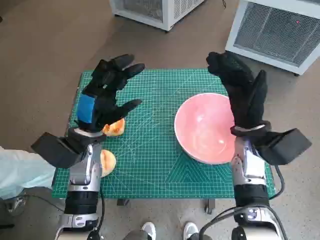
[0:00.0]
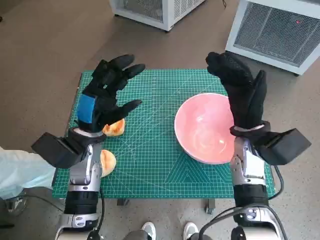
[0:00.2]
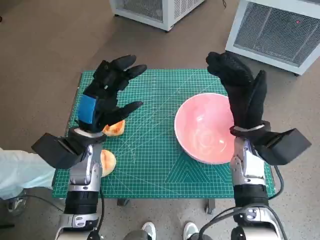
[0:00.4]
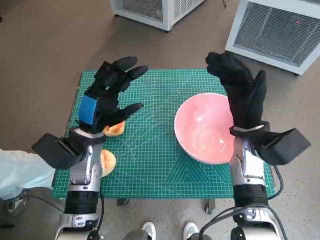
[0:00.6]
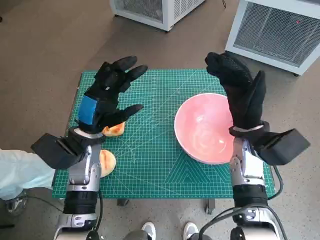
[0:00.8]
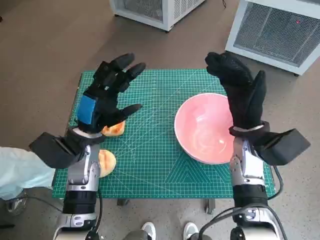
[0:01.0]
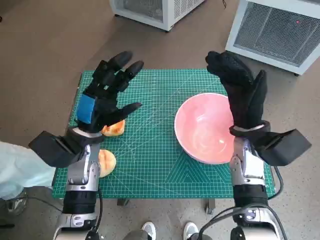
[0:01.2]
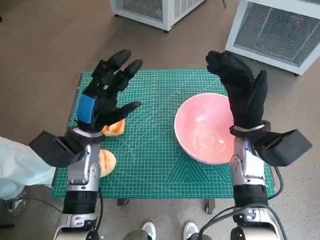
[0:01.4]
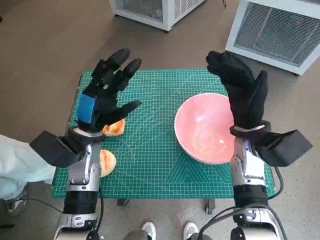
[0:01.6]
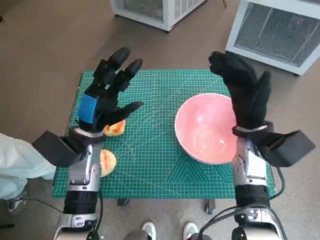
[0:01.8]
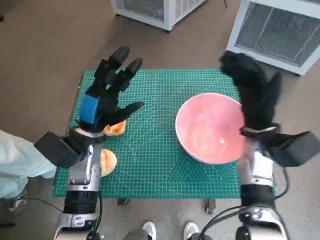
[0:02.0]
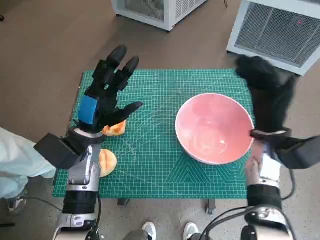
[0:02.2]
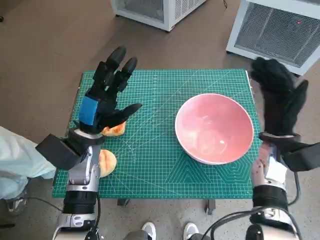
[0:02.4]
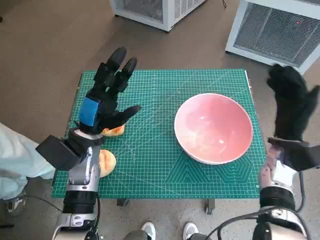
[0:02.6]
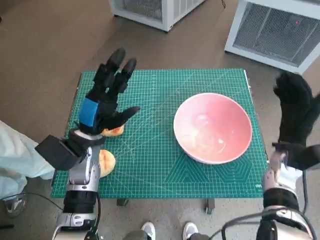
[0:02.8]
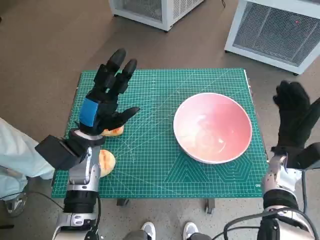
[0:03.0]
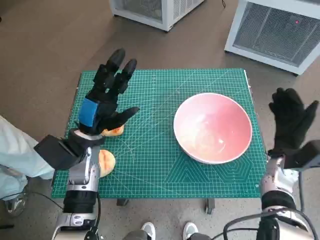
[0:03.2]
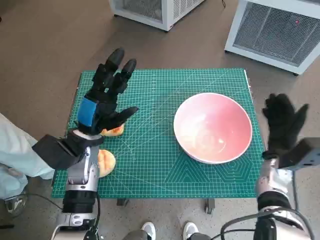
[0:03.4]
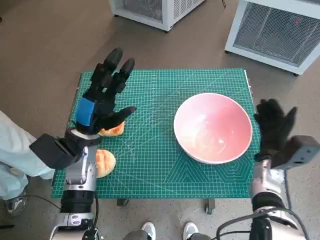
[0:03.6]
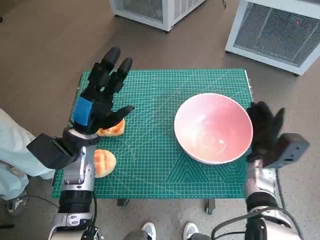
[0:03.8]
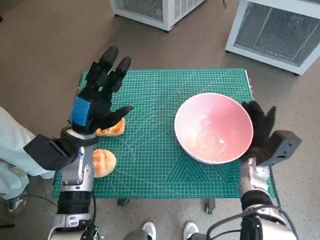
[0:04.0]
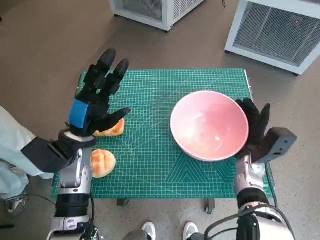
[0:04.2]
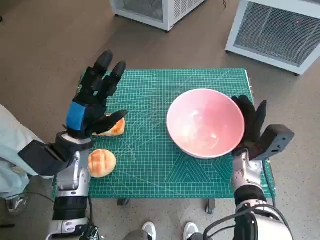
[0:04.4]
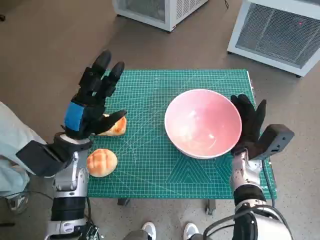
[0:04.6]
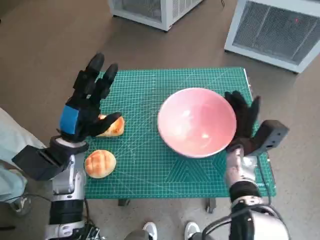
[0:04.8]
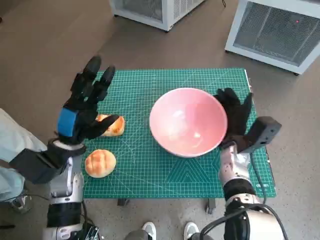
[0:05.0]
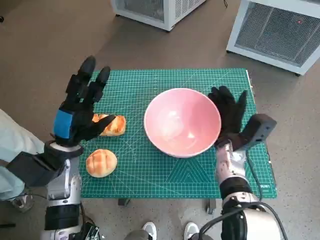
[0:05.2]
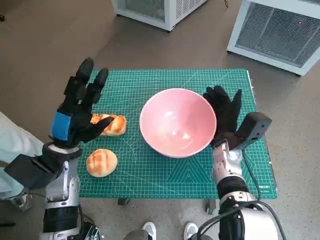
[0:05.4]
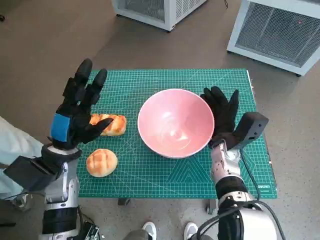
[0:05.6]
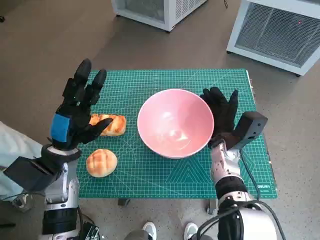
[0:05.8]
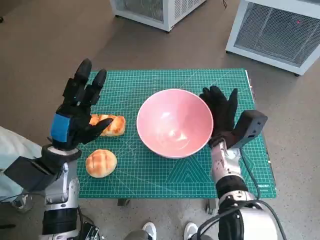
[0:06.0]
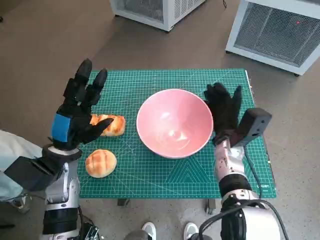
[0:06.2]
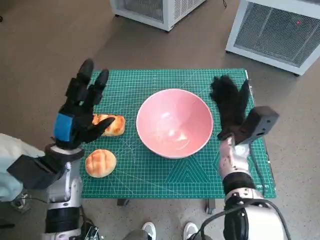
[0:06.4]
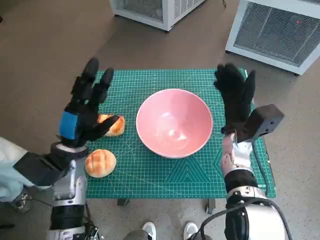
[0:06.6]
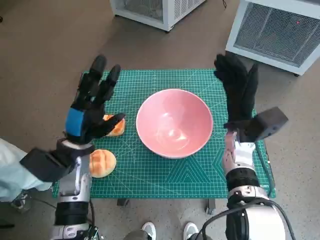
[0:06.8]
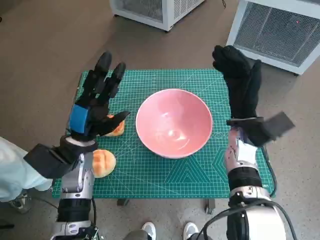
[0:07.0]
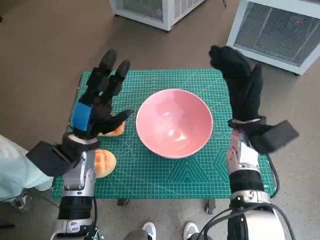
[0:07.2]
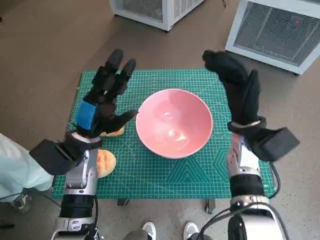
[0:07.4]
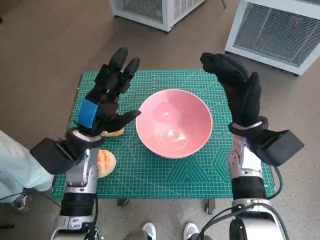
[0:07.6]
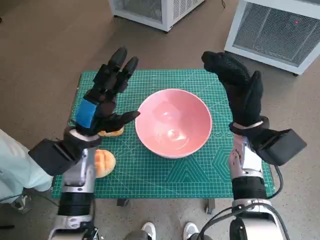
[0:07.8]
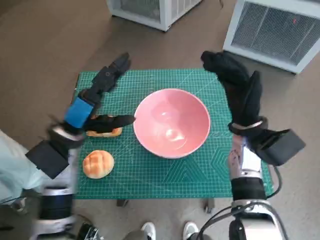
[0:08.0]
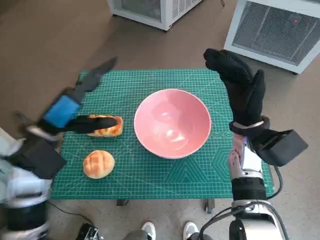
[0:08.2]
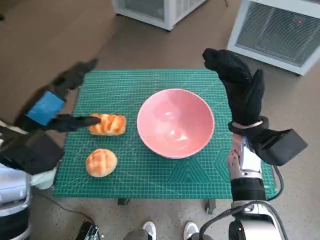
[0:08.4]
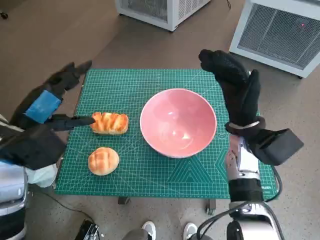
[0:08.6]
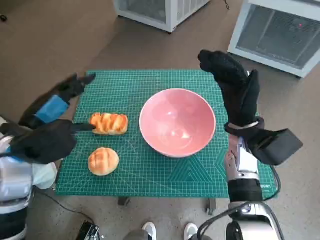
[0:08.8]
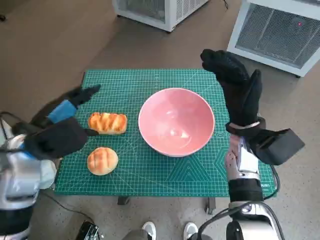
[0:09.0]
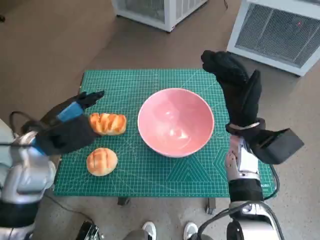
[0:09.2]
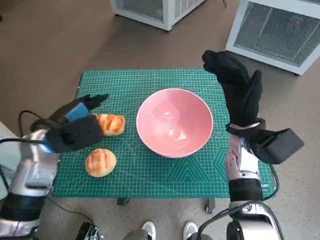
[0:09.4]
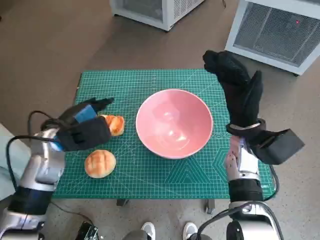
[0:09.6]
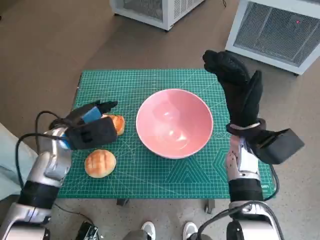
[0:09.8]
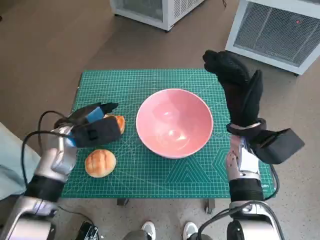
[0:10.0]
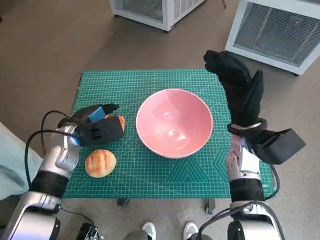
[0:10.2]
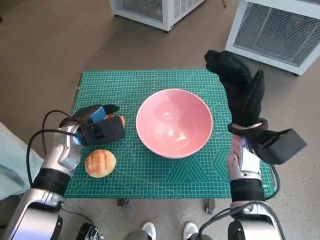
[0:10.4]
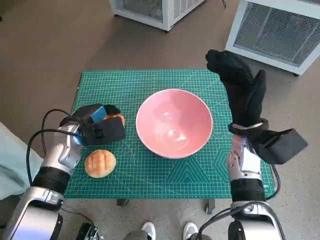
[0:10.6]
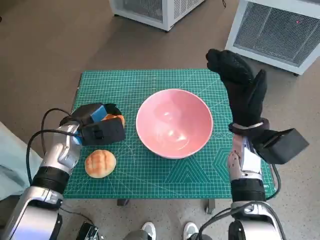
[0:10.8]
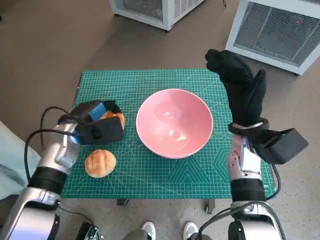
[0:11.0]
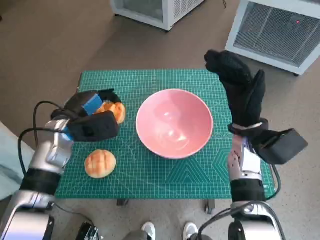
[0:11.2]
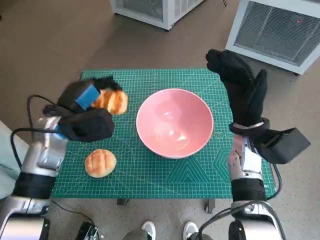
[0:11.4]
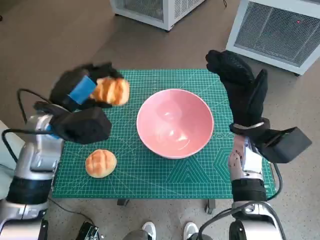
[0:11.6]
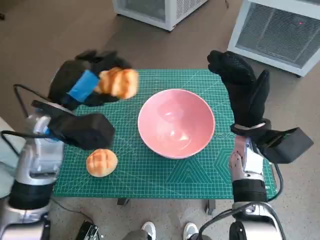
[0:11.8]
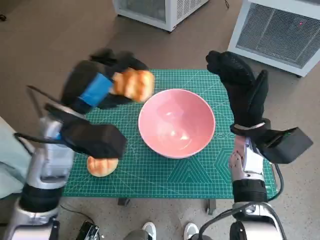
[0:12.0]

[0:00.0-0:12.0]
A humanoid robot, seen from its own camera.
Task of the whole recording: Push the bowl into the center of the table and put the bread into the bowl.
Step, 0:00.0 to 0:06.2: Move the pink bowl to the center of table with right hand.
Step, 0:06.4 to 0:10.8: Grasp the long bread with left hand.
0:01.6 to 0:03.0: The right hand moves to the right and downward, approximately 10 cm.
0:03.0 to 0:04.4: The right hand heads to the left, covering some 5 cm.
0:04.4 to 0:06.0: The right hand travels to the left by approximately 5 cm.
0:06.0 to 0:07.6: The right hand goes about 10 cm upward, while the left hand moves approximately 5 cm.
0:07.6 to 0:09.0: The left hand travels to the left and upward by about 10 cm.
0:09.0 to 0:10.4: The left hand heads downward and forward, covering roughly 10 cm.
0:10.4 to 0:12.0: The left hand moves upward, roughly 10 cm.

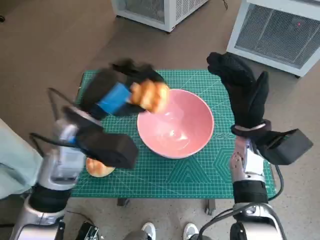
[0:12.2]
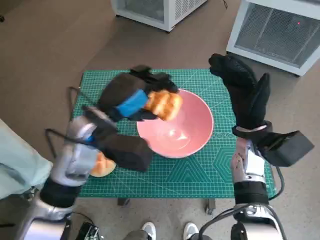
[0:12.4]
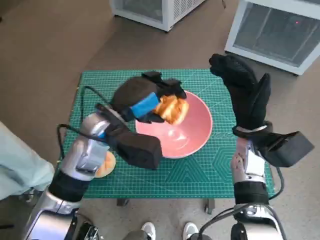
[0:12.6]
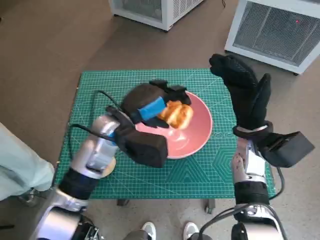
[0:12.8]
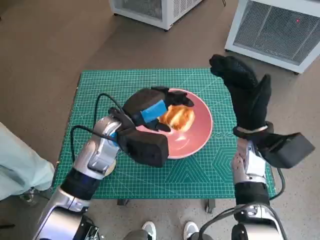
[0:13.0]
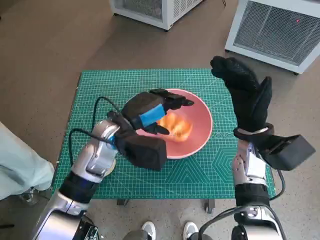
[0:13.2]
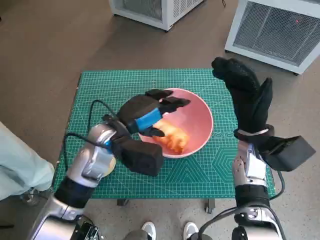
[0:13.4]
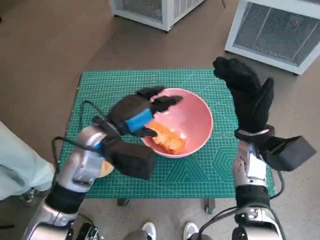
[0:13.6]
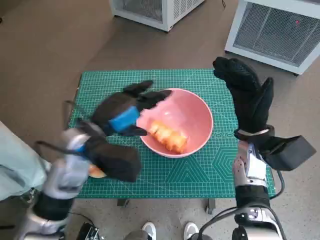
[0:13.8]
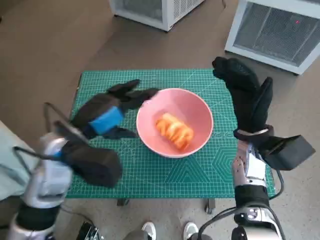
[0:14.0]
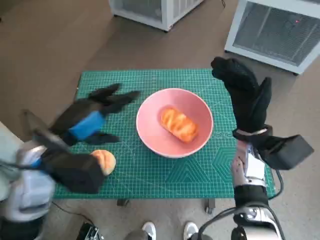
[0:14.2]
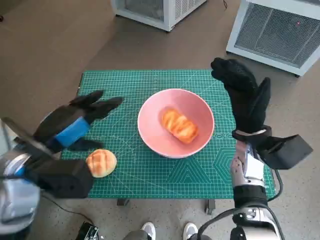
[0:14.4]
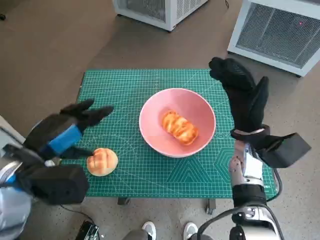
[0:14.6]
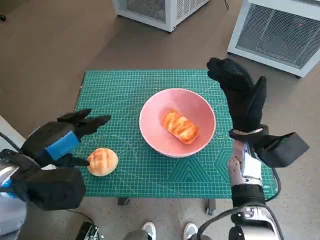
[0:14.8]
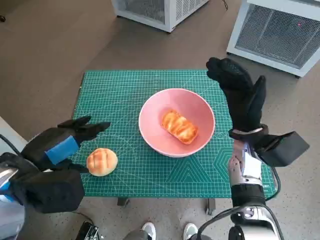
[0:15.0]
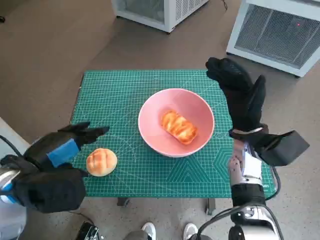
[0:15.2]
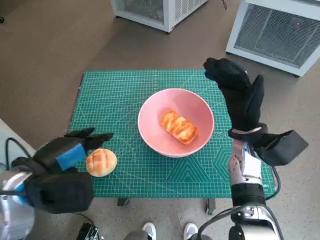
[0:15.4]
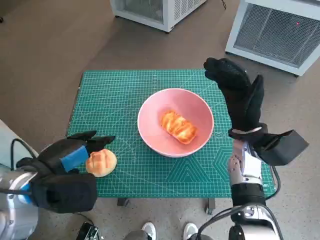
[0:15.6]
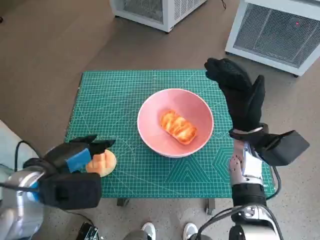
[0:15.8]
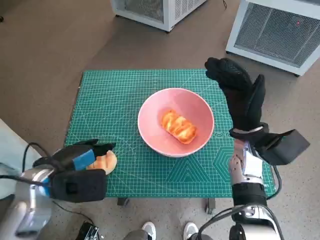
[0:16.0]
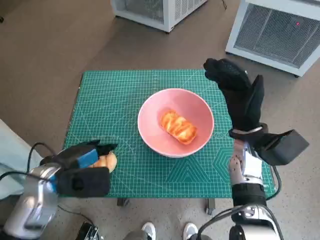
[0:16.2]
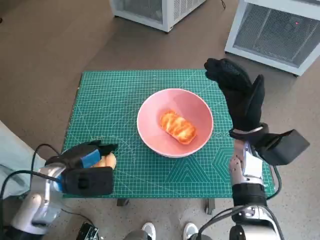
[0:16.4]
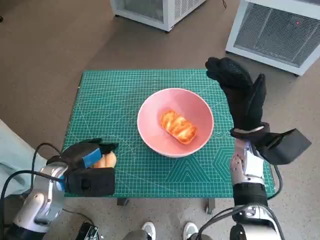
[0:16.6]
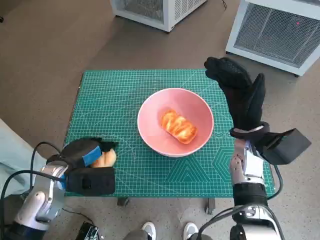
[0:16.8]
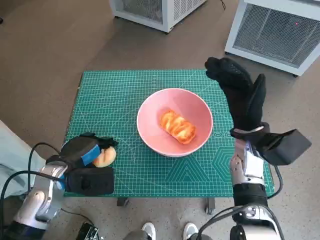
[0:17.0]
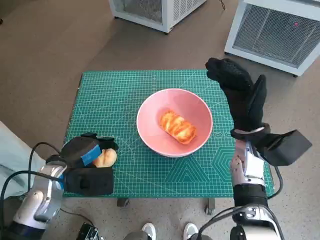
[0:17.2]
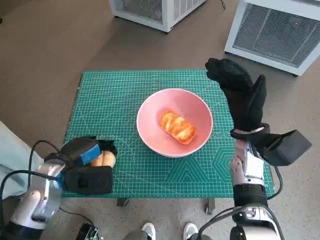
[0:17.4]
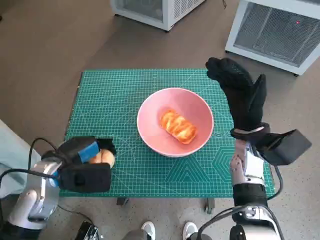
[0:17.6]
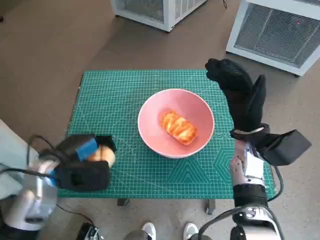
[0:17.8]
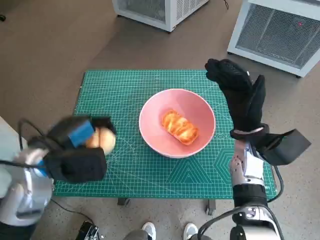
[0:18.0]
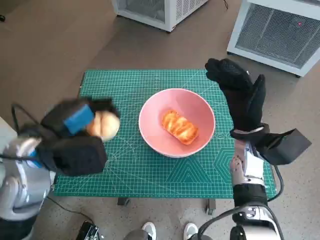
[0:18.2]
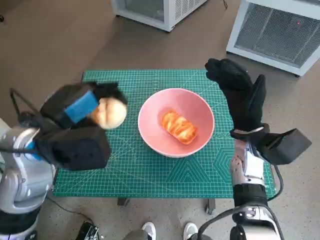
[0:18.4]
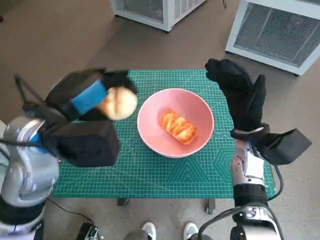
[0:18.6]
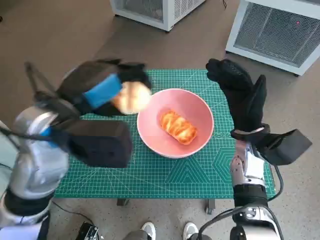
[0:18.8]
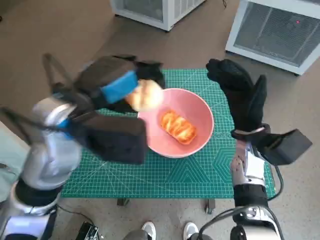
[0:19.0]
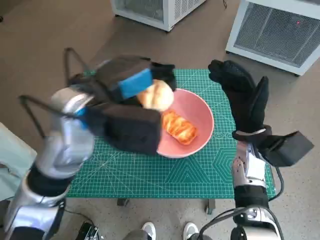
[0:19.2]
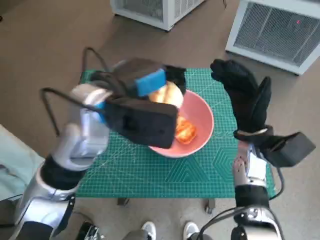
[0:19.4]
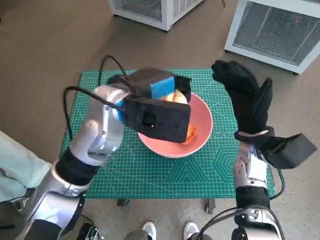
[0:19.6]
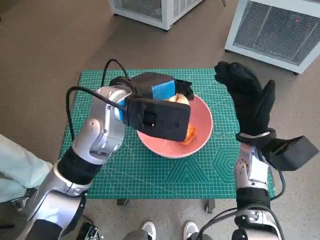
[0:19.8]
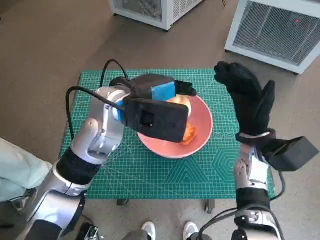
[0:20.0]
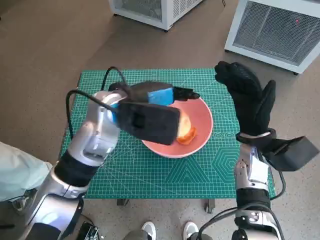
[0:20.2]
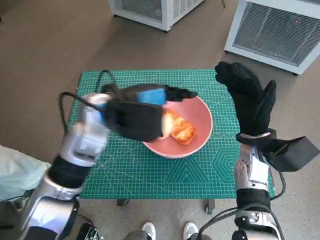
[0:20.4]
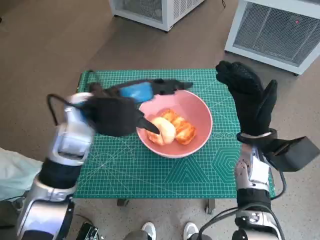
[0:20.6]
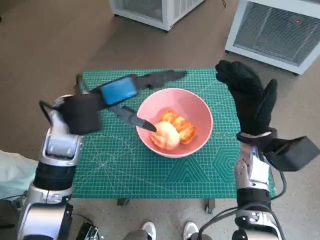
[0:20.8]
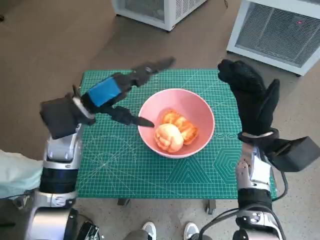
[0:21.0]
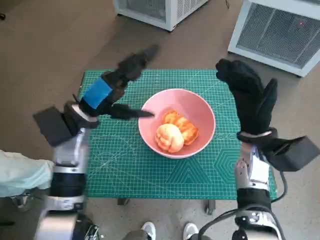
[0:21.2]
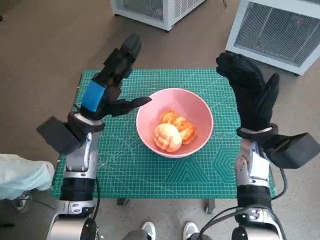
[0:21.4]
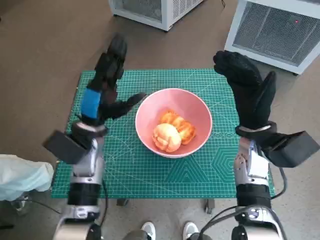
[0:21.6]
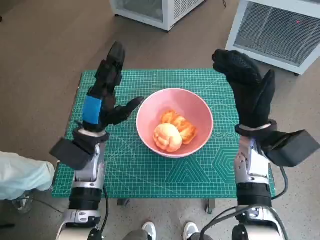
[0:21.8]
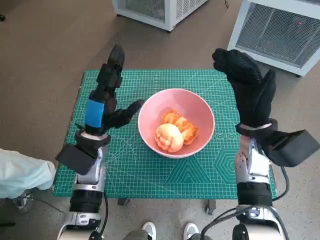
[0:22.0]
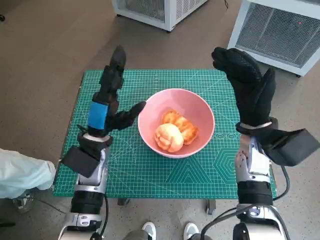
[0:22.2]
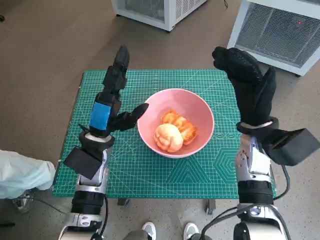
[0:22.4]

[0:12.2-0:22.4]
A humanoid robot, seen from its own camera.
Task of the whole recording: Push the bowl into the center of the table and put the bread into the bowl.
Step, 0:13.4 to 0:16.4: Grasp the round bread with left hand.
Step, 0:16.6 to 0:20.2: Place the round bread in pink bowl with left hand.
0:12.2 to 0:13.6: The left hand ends up approximately 5 cm from where it was.
0:13.6 to 0:15.2: The left hand goes approximately 15 cm to the left and backward.
0:15.2 to 0:16.6: The left hand is displaced downward by some 10 cm.
0:16.6 to 0:18.0: The left hand travels upward by about 5 cm.
0:18.0 to 0:19.4: The left hand travels to the right, upward and forward by about 15 cm.
0:19.4 to 0:21.0: The left hand is displaced to the left and downward by roughly 10 cm.
0:21.0 to 0:22.4: The left hand shifts about 10 cm downward.
